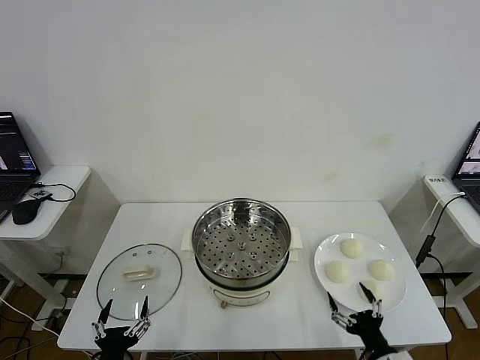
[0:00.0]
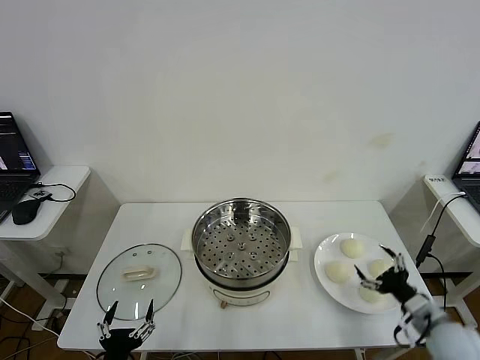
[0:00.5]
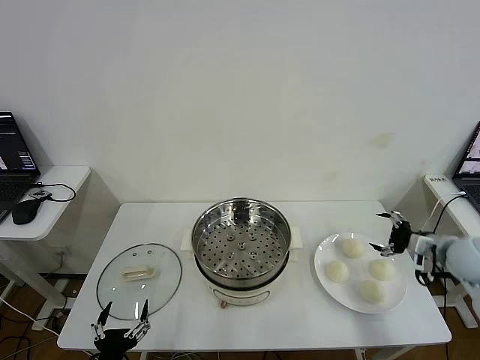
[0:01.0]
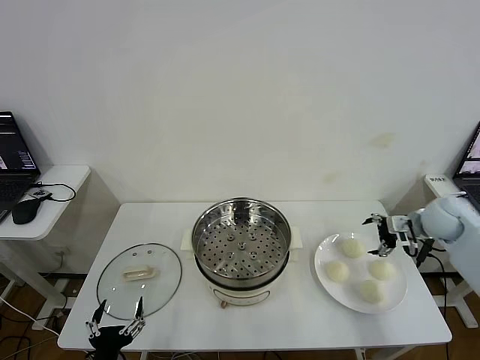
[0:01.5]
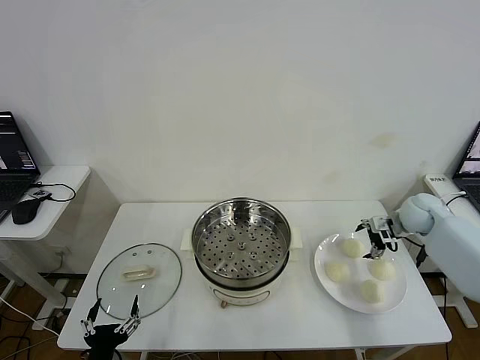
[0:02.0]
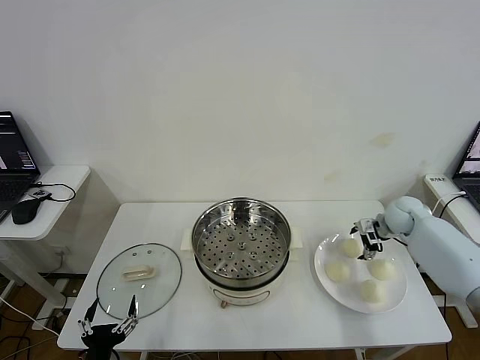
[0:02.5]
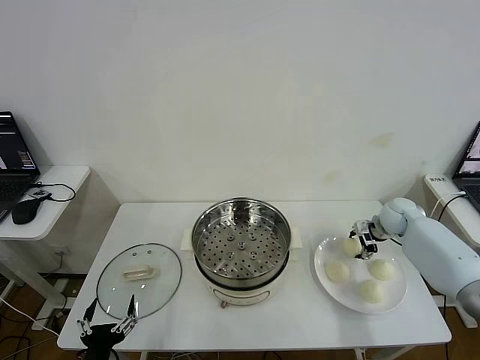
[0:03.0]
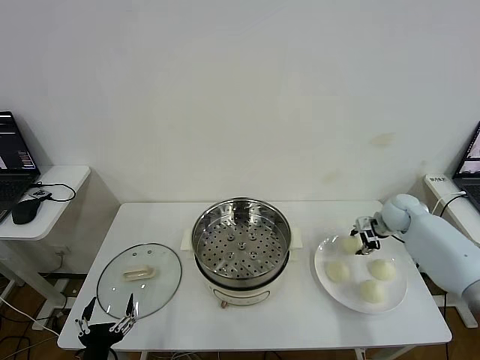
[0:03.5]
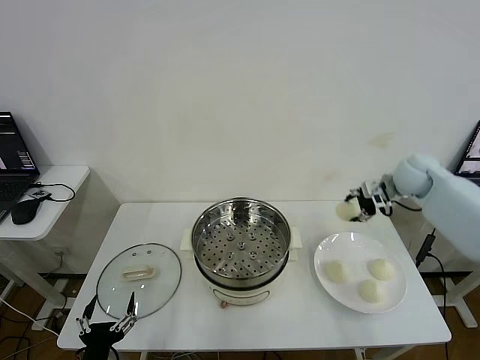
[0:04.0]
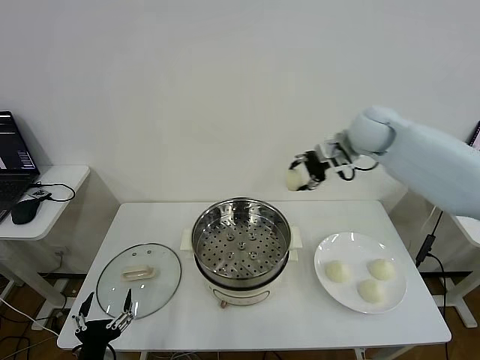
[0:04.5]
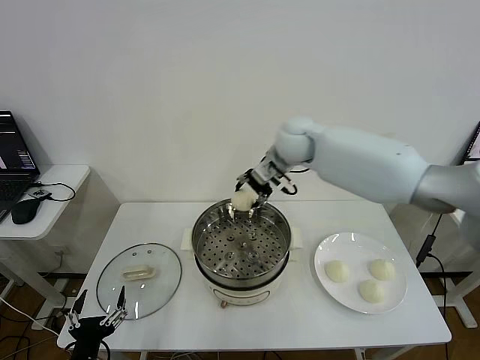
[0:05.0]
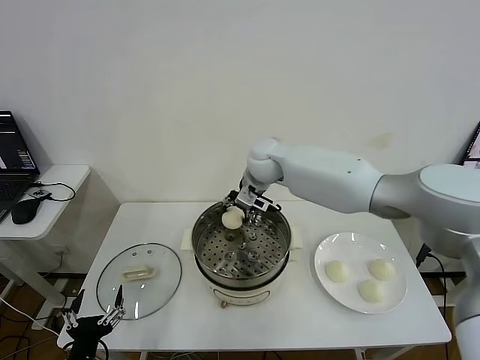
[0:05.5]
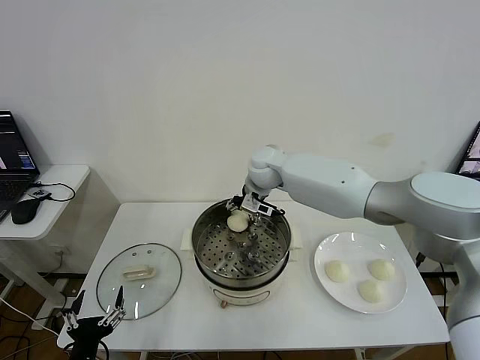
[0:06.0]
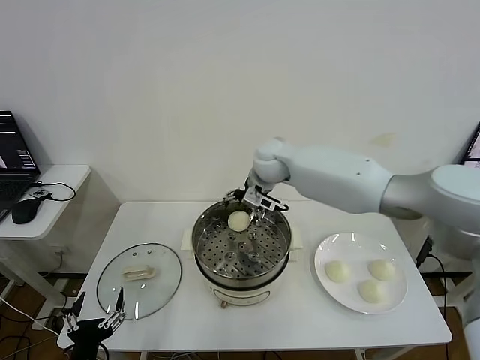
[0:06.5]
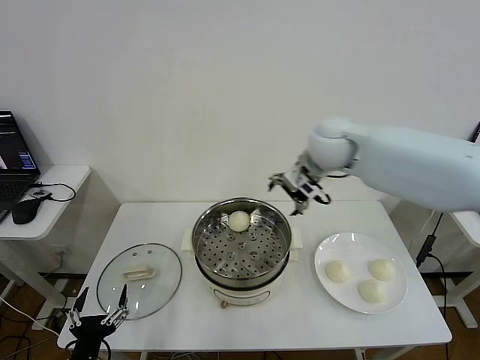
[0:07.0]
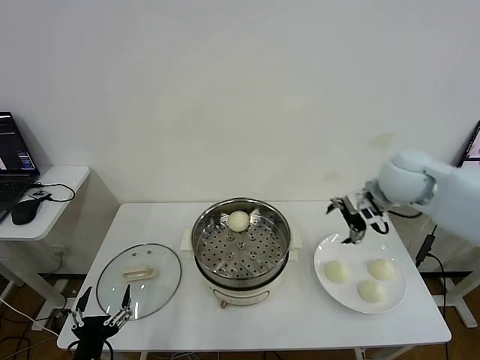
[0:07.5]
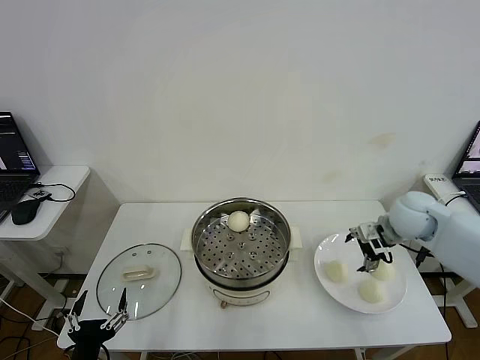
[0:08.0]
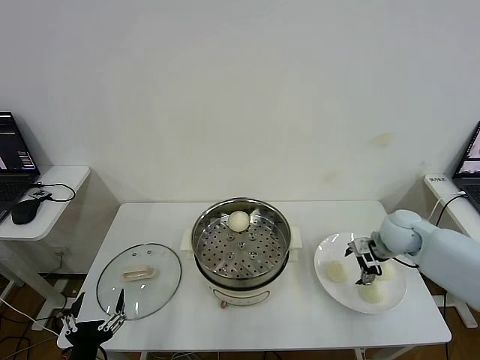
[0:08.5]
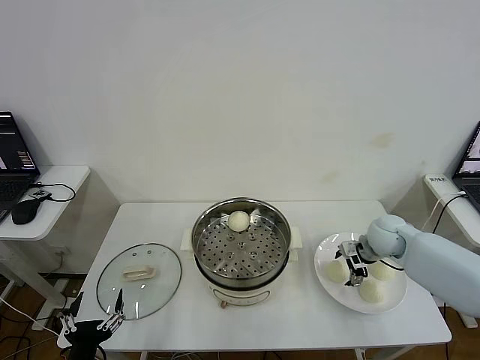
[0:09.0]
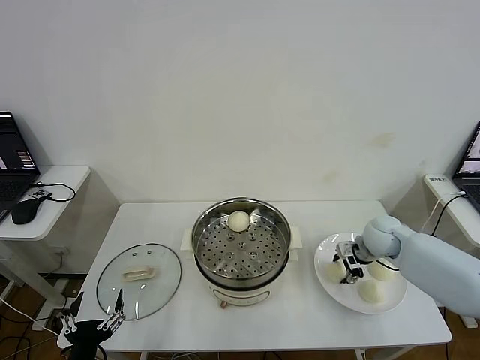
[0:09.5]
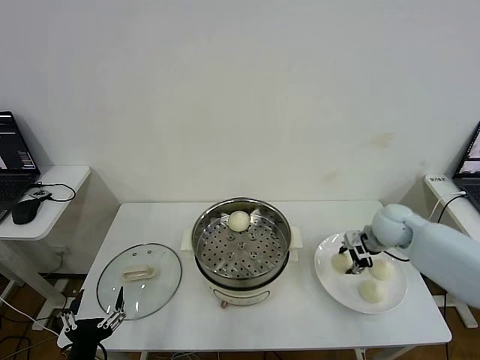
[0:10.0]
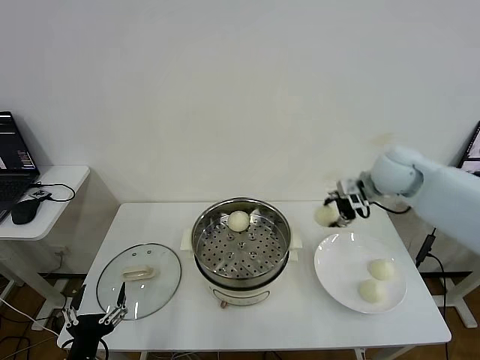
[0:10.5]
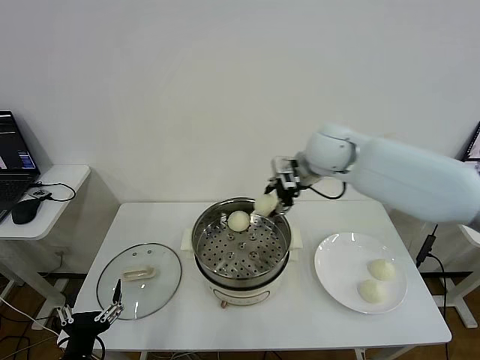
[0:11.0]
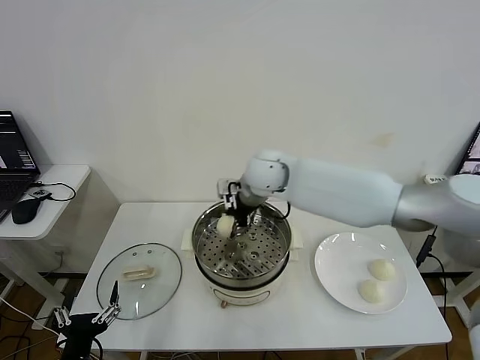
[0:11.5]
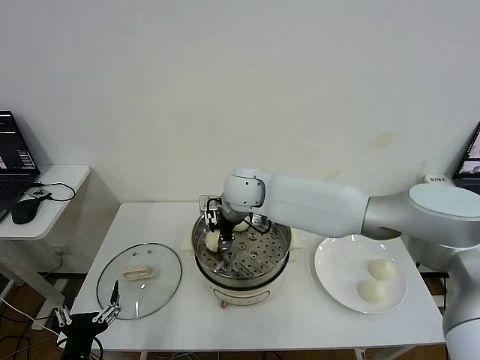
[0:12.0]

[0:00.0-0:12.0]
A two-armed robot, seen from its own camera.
Step, 0.0 to 3.0 s: Grasp the baozi in the plate with right gripper.
Step, 3.5 to 6.0 s: Place the baozi on the steamer with right gripper.
Step, 6.5 to 9.5 s: Grasp the baozi in the plate with right gripper.
2.0 to 4.0 s: The right gripper shifts some 15 cm upward and to the left, and closes up.
4.0 to 6.0 s: The right gripper moves to the left, some 30 cm, and opens.
6.0 to 8.0 s: The right gripper heads to the right and backward, covering roughly 35 cm, and opens up.
8.0 to 10.0 s: The right gripper reaches approximately 10 cm downward, then returns, and closes.
10.0 to 12.0 s: The right gripper travels to the left by approximately 35 cm.

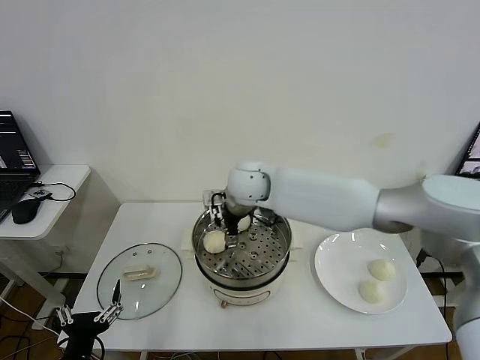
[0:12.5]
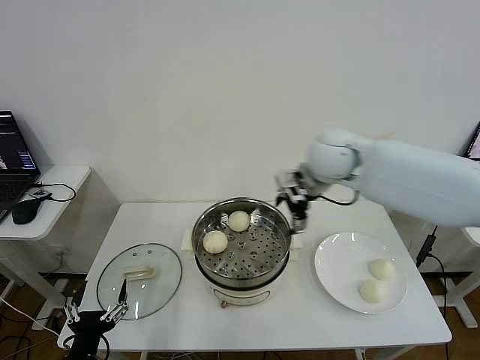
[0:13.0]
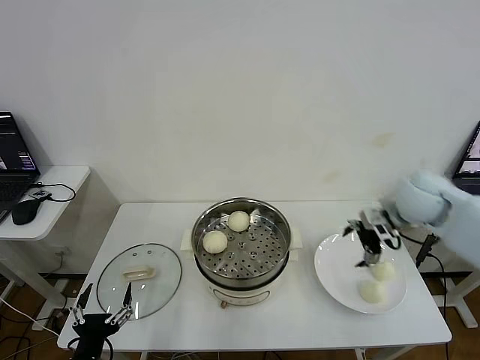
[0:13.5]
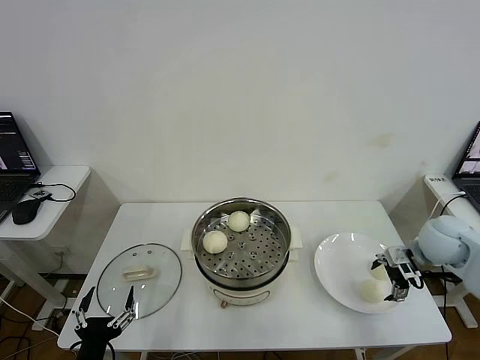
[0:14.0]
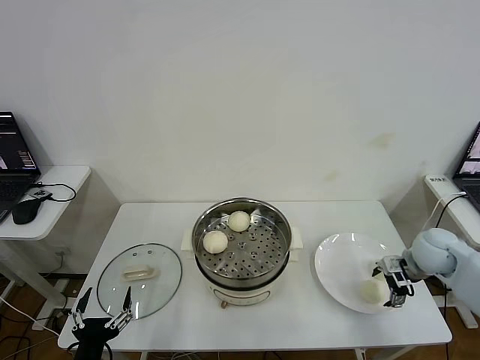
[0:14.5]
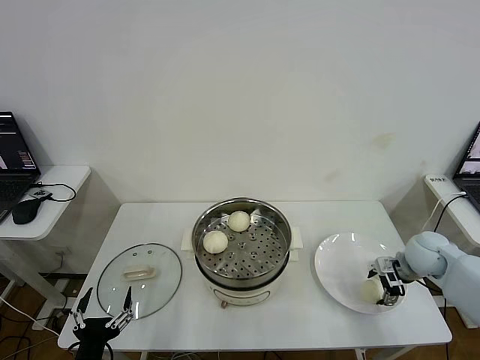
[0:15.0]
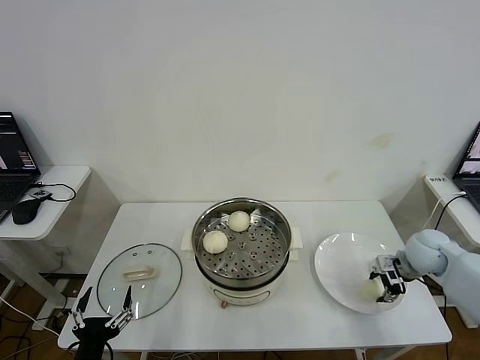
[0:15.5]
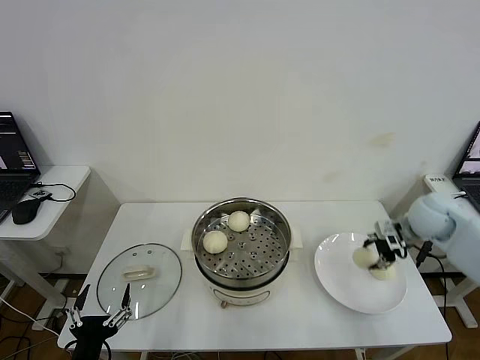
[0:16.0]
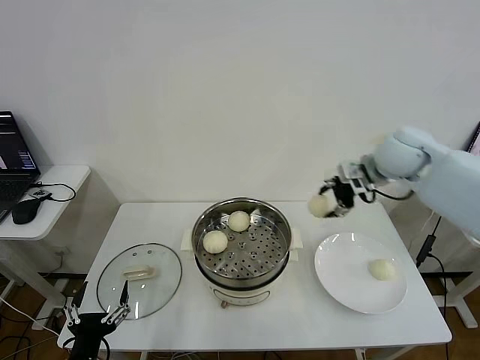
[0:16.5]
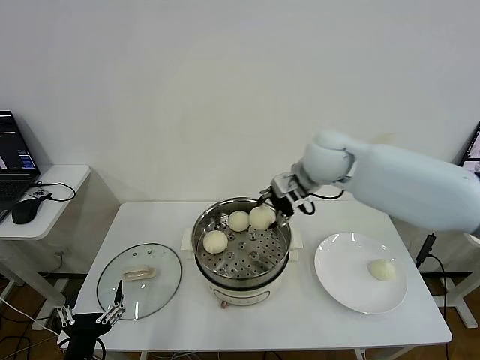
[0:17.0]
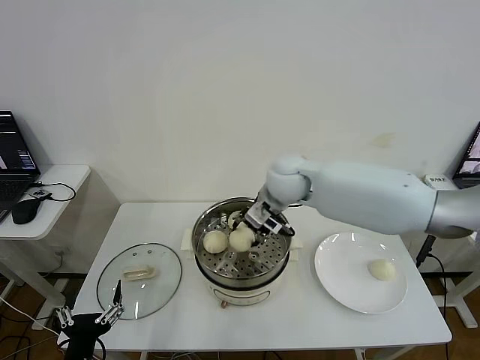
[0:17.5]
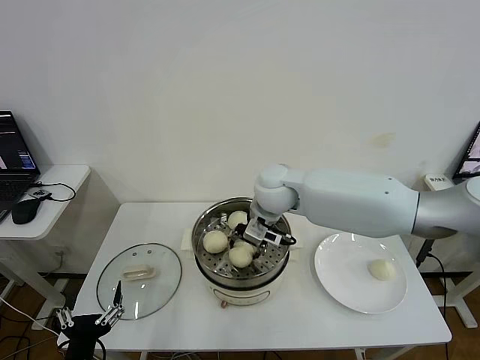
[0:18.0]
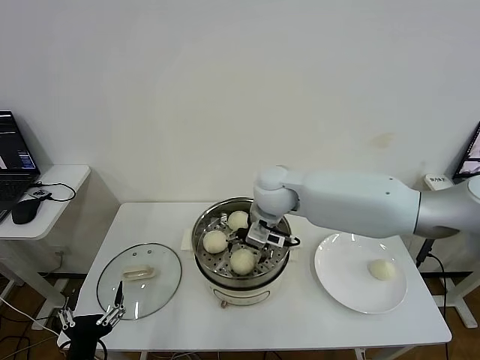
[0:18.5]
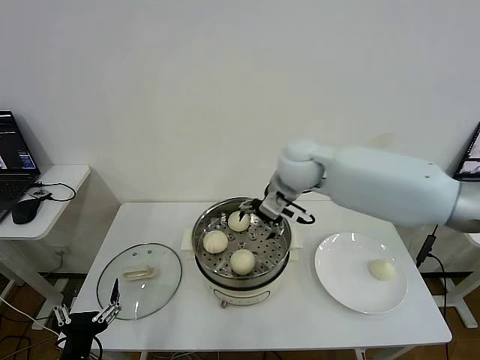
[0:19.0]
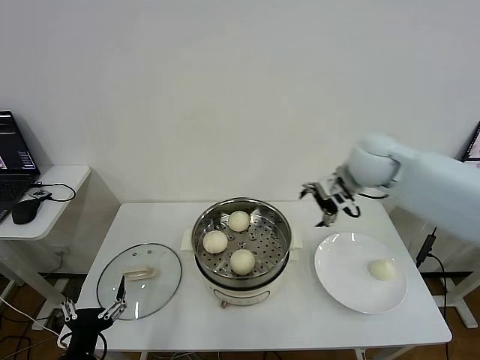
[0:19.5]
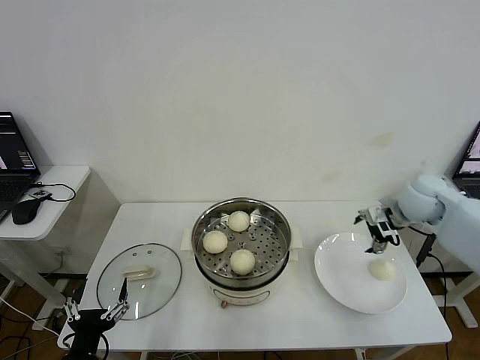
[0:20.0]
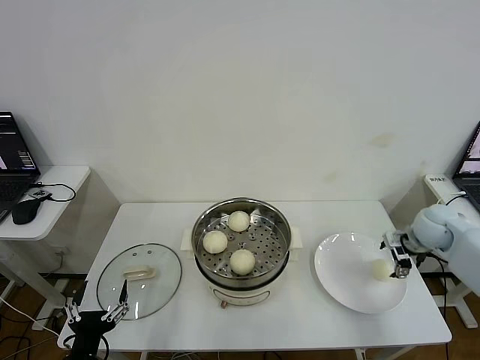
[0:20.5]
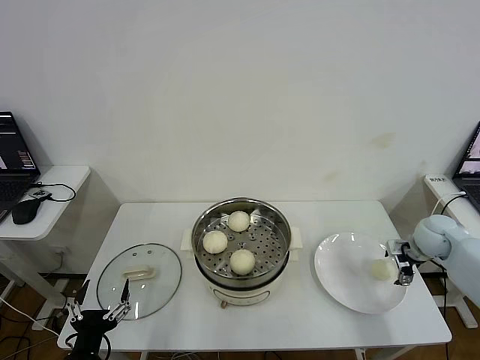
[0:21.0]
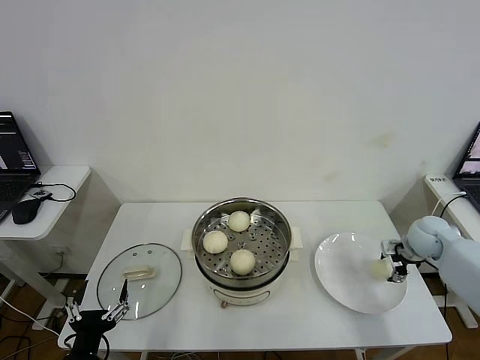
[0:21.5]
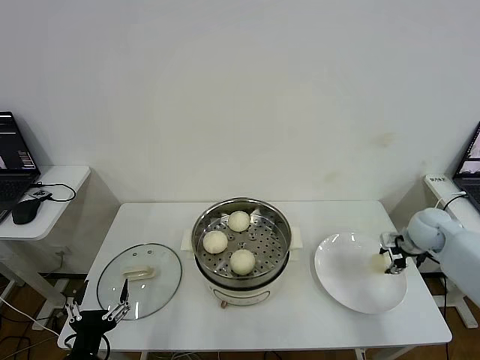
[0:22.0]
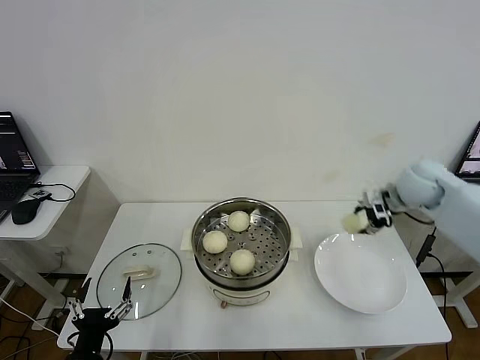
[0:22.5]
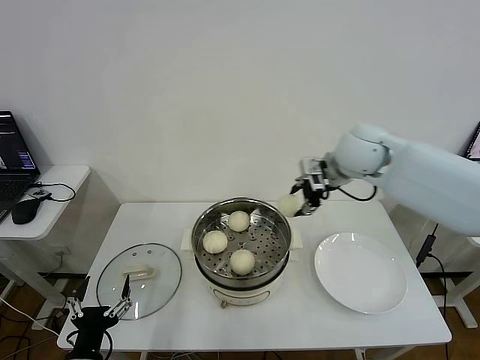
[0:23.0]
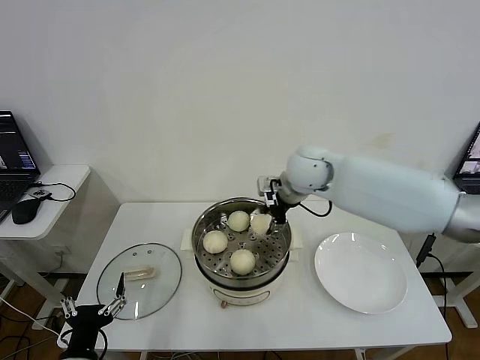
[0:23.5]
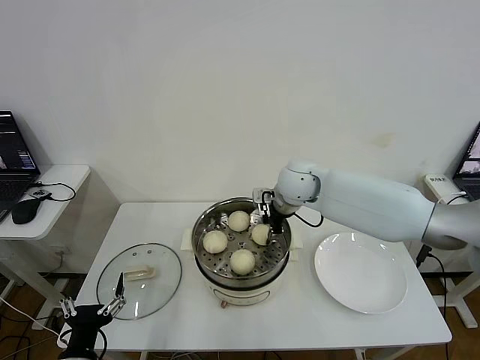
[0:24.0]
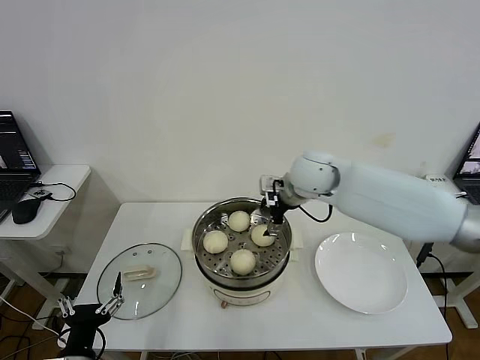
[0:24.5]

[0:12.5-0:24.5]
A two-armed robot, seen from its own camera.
Step, 13.0 to 15.5 s: Grasp the baozi in the plate with right gripper.
Step, 16.0 to 18.5 s: Place the baozi on the steamer with right gripper.
Step, 19.0 to 21.5 s: Grasp the baozi in the plate with right gripper.
Step, 22.0 to 24.0 s: Place the baozi on the steamer with right gripper.
12.5 to 14.5 s: The right gripper heads to the right, covering roughly 40 cm.
14.5 to 16.5 s: The right gripper travels upward, to the left and forward by some 30 cm, and closes.
16.5 to 18.5 s: The right gripper is displaced to the left and downward by some 25 cm, and opens up.
18.5 to 20.5 s: The right gripper moves to the right, some 40 cm.
20.5 to 22.5 s: The right gripper moves upward and to the left, roughly 15 cm, and closes up.
22.5 to 24.5 s: The right gripper goes some 20 cm to the left, and opens up.

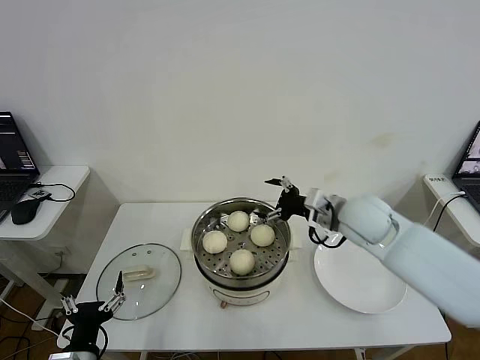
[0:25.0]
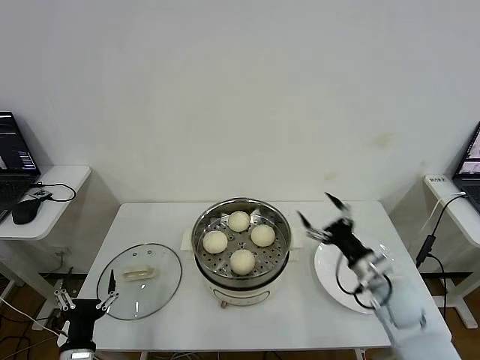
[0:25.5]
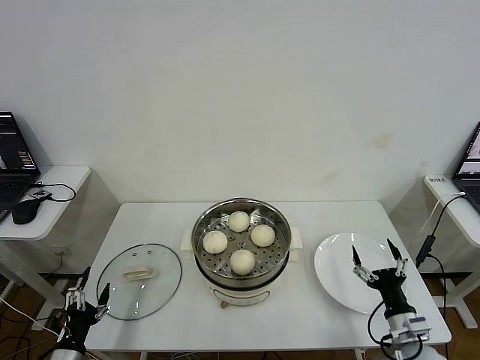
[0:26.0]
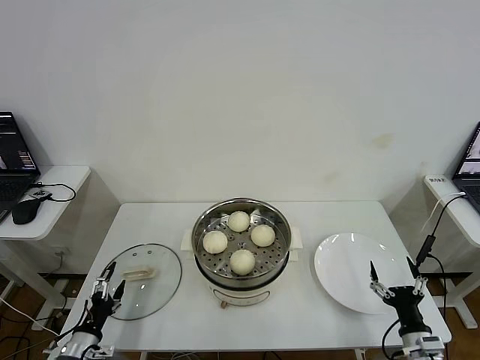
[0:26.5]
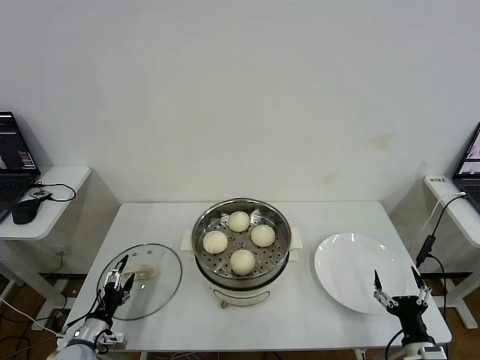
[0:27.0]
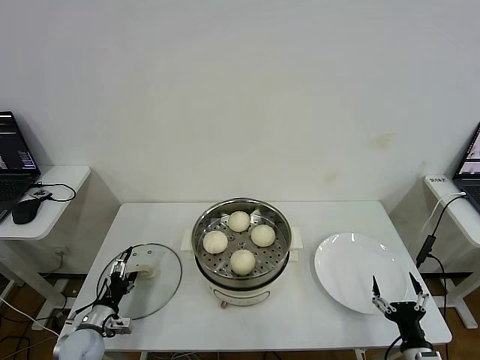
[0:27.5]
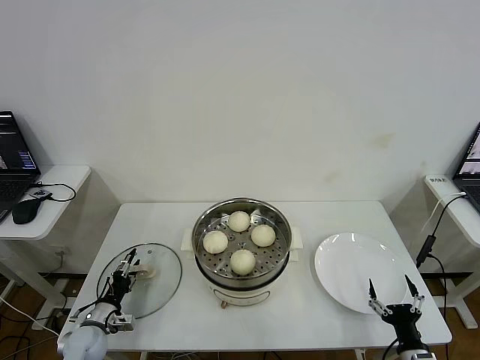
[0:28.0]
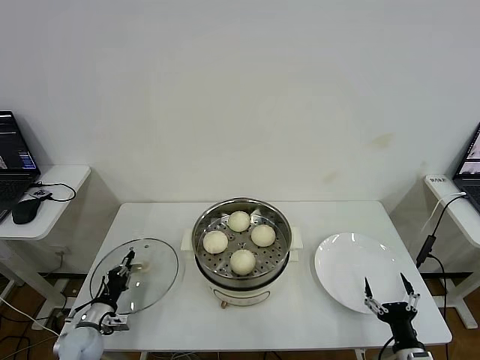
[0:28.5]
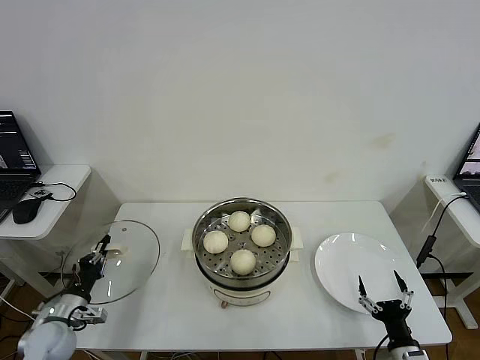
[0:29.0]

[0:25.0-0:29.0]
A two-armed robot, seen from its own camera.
Step, 25.0 to 28.5 s: Grasp the pot lid with left gripper.
25.0 to 27.0 s: The left gripper travels downward, forward and to the left by roughly 15 cm, while the right gripper goes some 40 cm backward, downward and to the right.
27.0 to 29.0 s: The left gripper goes approximately 5 cm upward, and closes its fingers.
